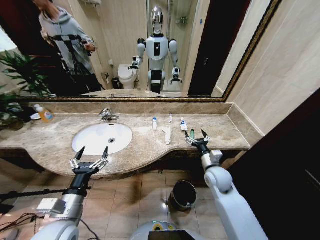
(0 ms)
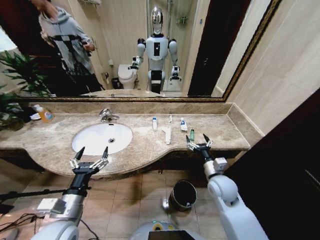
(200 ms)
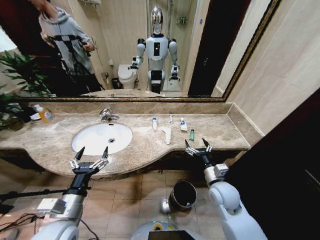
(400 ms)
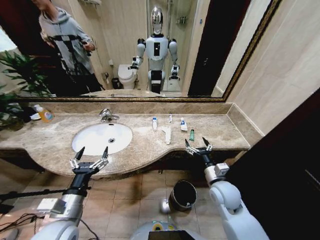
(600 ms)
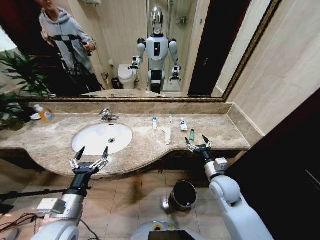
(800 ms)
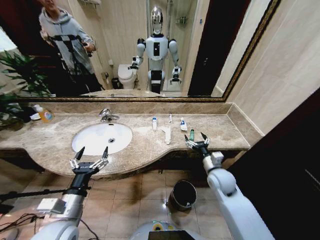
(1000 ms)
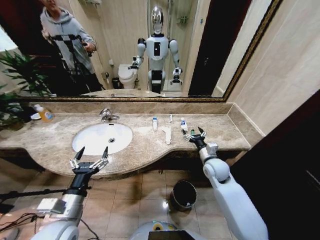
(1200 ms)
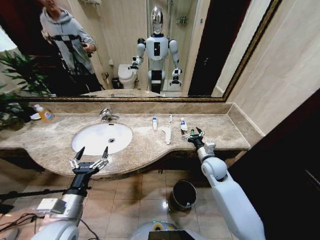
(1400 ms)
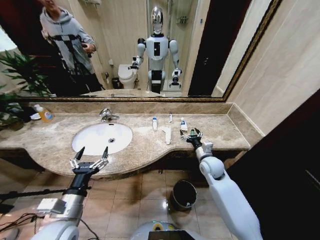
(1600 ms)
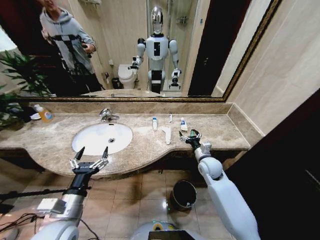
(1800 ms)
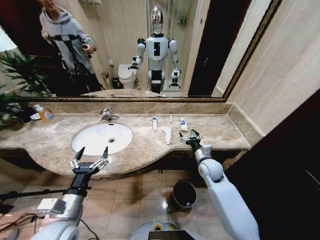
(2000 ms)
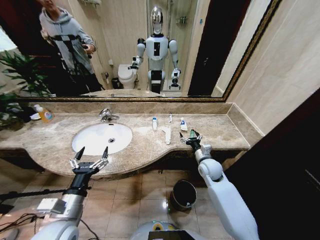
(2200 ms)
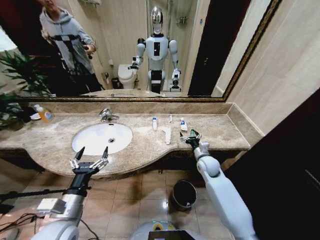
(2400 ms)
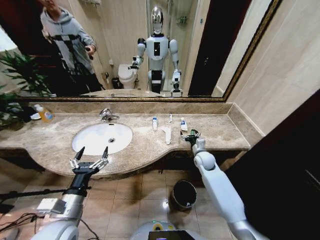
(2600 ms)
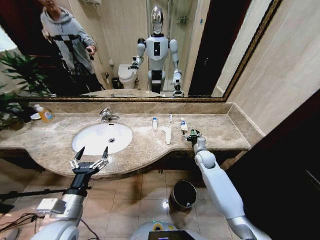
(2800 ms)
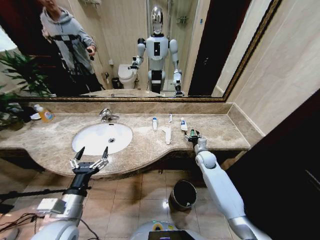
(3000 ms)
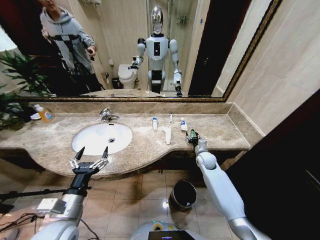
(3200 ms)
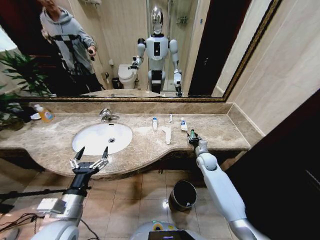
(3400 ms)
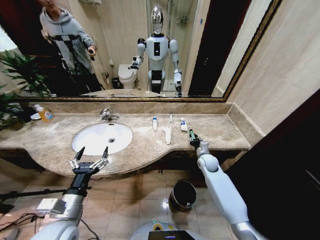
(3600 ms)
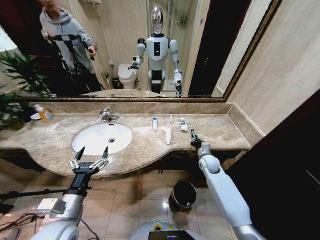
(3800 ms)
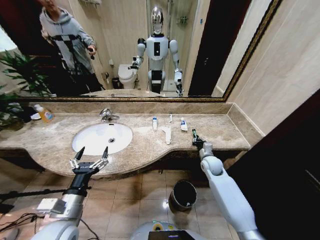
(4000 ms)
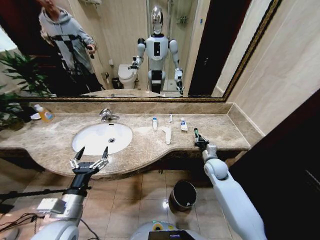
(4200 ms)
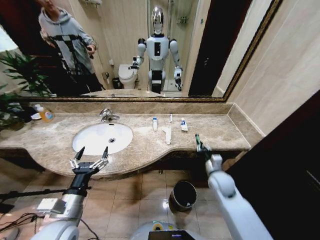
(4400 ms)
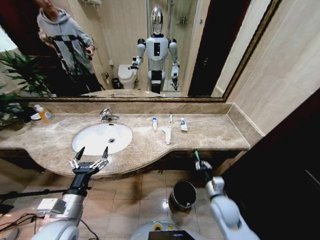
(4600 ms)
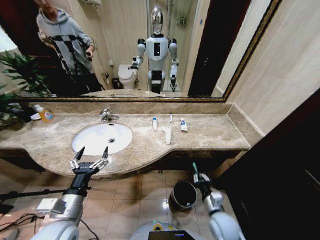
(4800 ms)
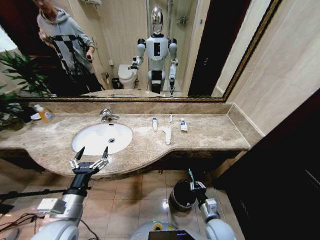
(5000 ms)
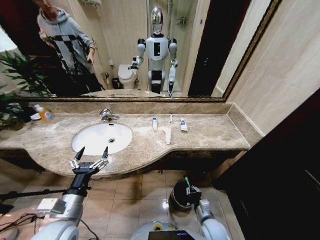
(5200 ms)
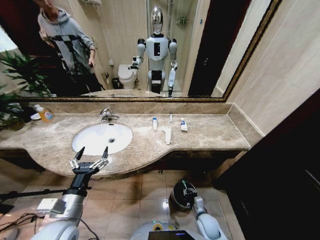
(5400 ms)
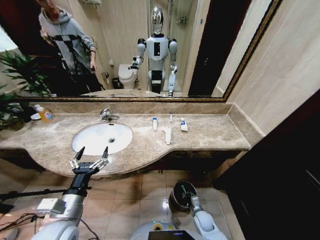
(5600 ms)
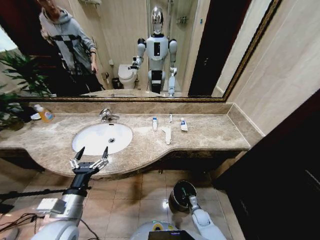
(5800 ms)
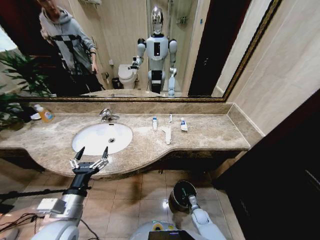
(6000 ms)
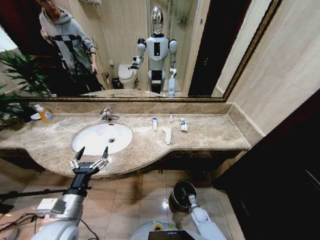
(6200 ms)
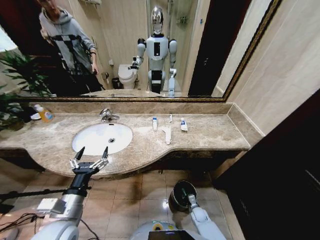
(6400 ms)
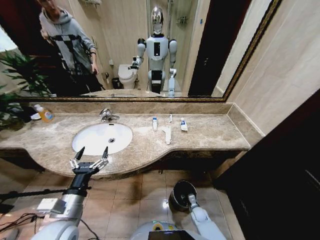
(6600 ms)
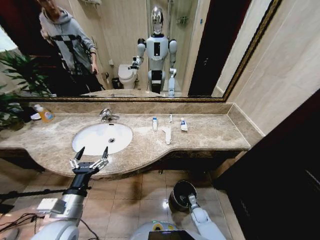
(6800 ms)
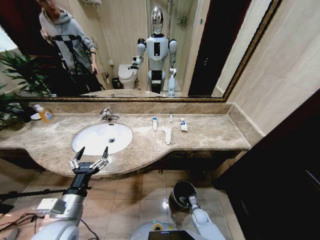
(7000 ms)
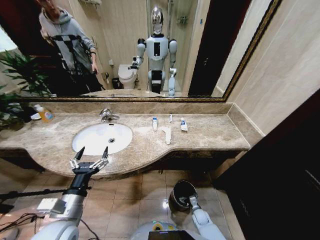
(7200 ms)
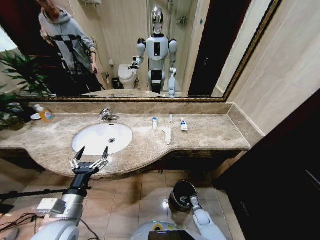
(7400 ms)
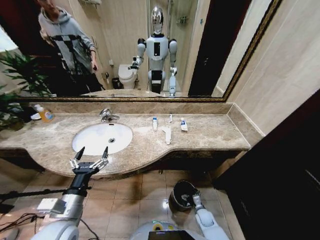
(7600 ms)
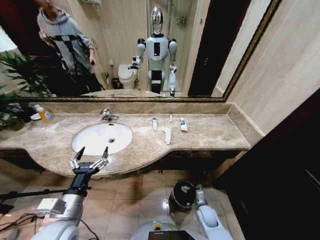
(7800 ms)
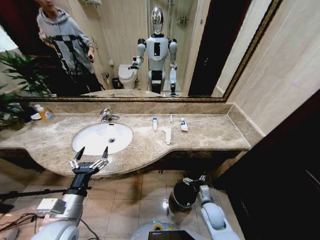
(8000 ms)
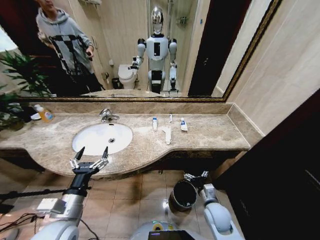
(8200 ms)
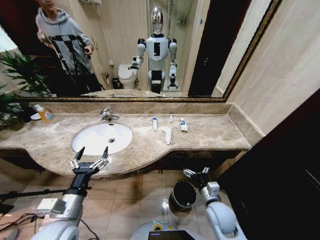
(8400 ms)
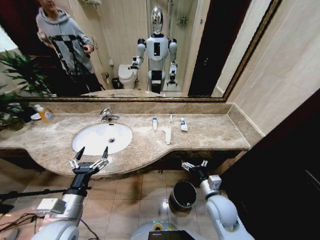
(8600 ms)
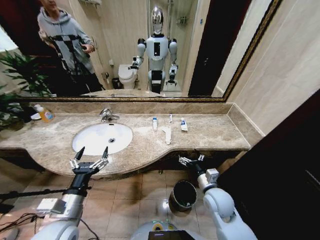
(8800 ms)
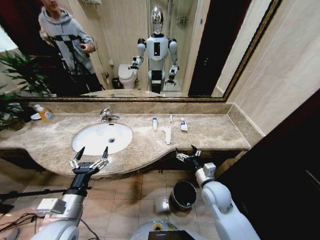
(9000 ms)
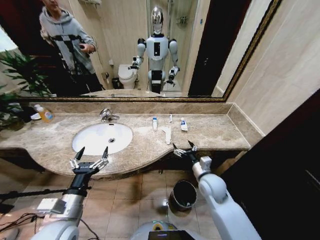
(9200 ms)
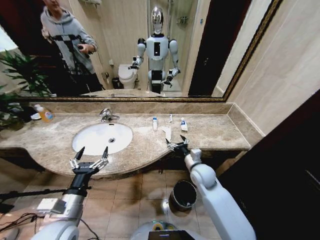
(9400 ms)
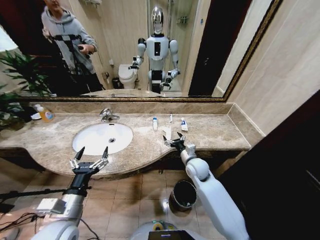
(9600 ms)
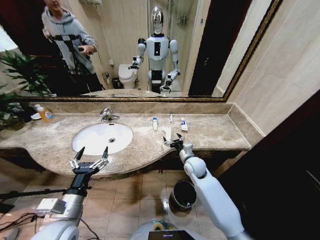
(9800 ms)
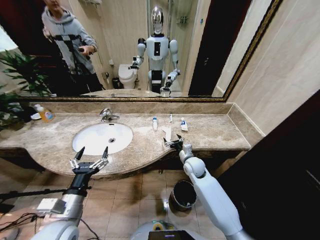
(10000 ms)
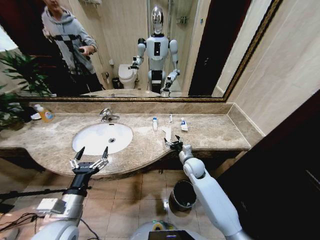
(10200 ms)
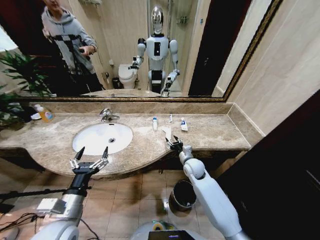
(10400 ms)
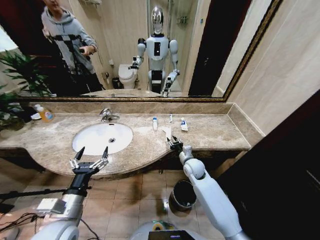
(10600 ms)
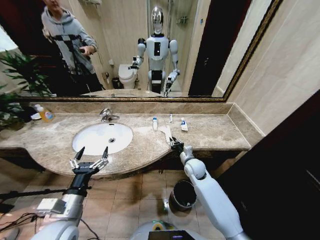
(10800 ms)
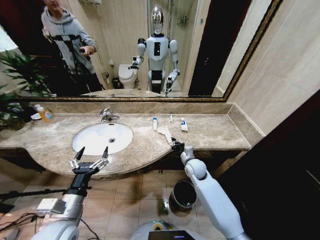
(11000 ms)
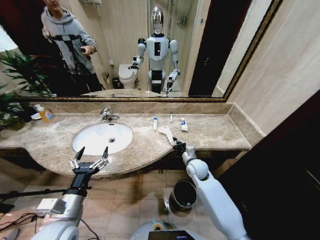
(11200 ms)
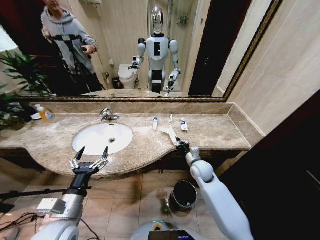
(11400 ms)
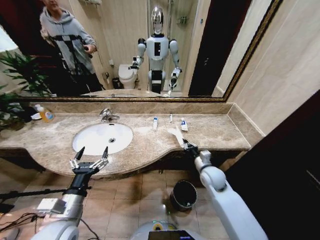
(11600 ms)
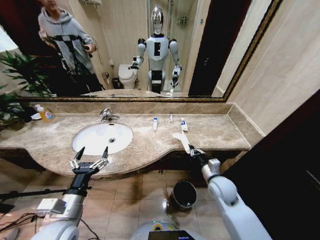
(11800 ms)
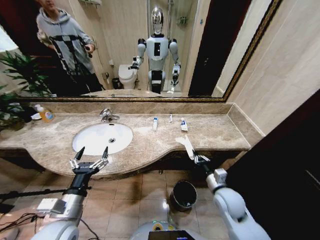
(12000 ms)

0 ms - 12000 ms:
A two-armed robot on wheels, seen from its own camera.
Task of the whole recording: Pick up the trash from the sink and place it in the trash bin.
0 ms - 1600 ms: The right gripper moves forward, some 5 cm.
1600 ms - 3000 ms: The right gripper heads forward and downward, covering about 10 cm.
3000 ms - 4400 ms: The right gripper travels backward by roughly 15 cm, and closes.
4400 ms - 6000 ms: The right gripper heads downward, covering roughly 30 cm.
6000 ms - 7600 ms: The right gripper opens.
7600 ms - 9000 ms: The right gripper travels upward by approximately 30 cm.
9000 ms - 10400 ms: The right gripper shifts some 15 cm forward.
10400 ms - 12000 ms: The right gripper heads backward and to the right, covering about 20 cm, and closes up.

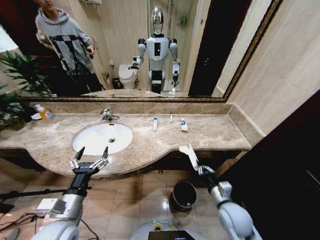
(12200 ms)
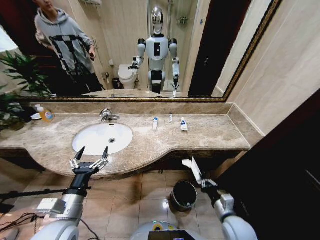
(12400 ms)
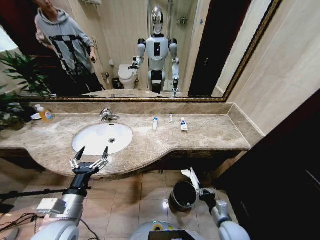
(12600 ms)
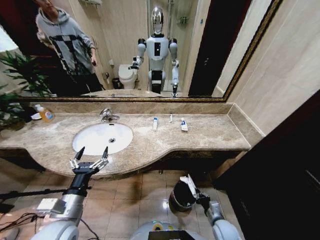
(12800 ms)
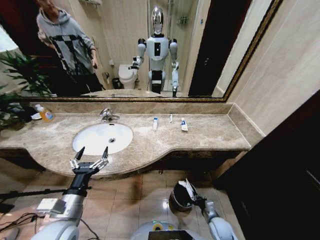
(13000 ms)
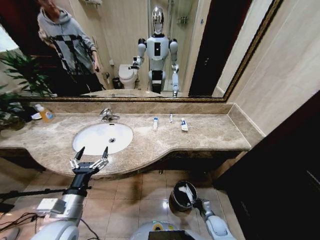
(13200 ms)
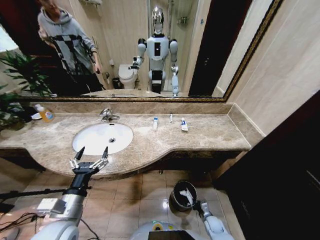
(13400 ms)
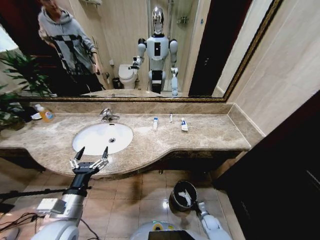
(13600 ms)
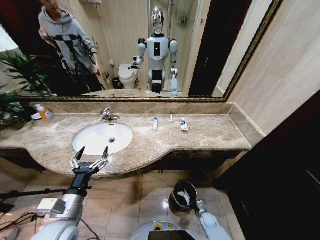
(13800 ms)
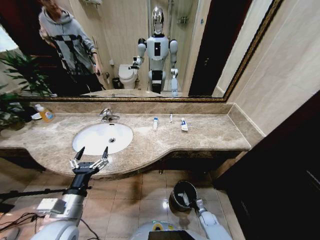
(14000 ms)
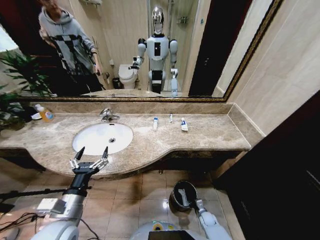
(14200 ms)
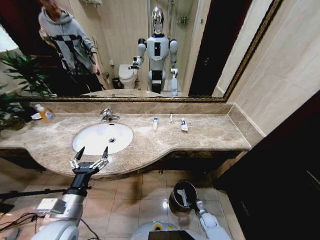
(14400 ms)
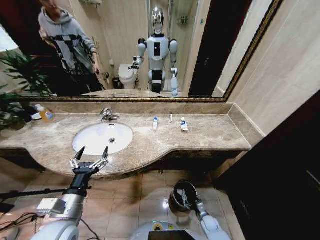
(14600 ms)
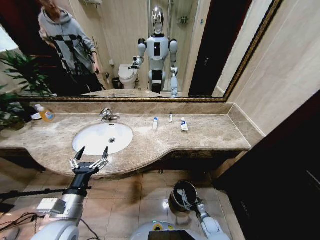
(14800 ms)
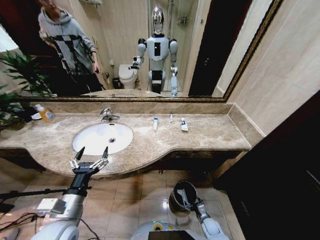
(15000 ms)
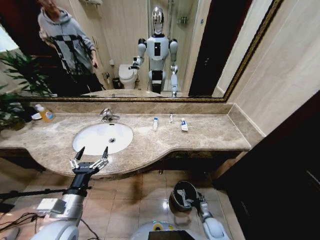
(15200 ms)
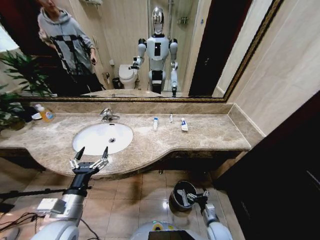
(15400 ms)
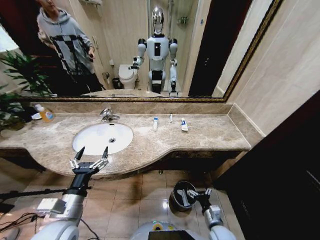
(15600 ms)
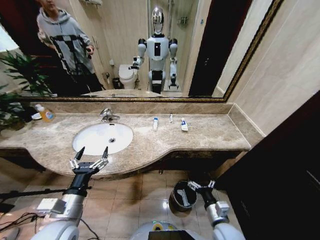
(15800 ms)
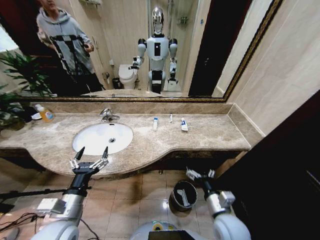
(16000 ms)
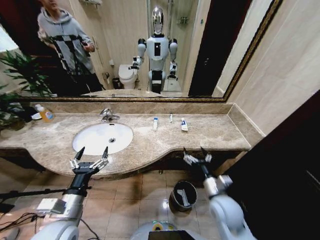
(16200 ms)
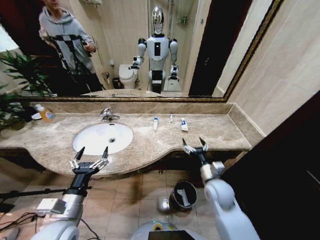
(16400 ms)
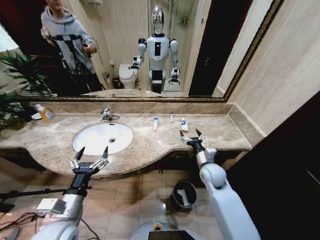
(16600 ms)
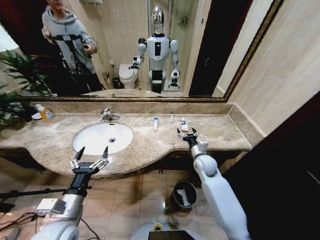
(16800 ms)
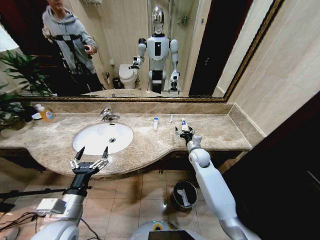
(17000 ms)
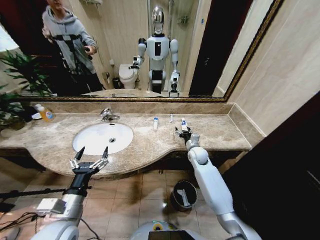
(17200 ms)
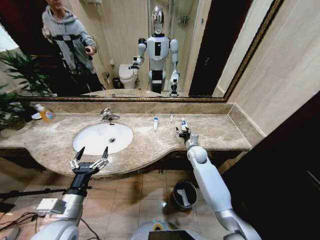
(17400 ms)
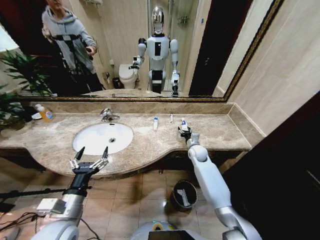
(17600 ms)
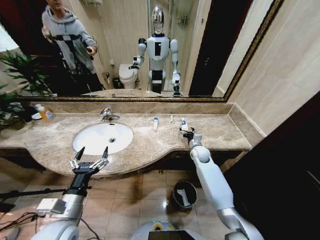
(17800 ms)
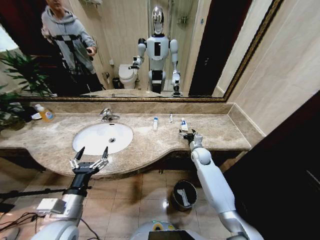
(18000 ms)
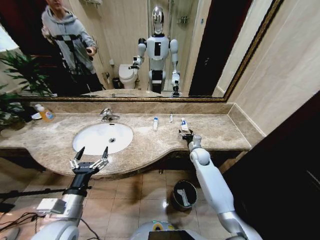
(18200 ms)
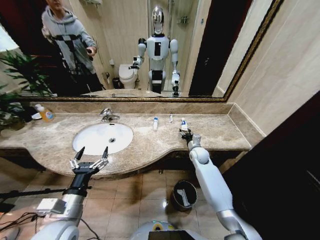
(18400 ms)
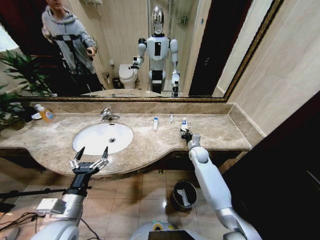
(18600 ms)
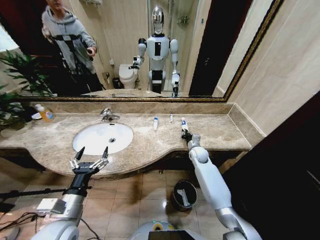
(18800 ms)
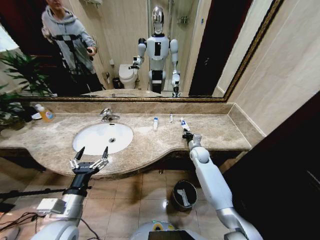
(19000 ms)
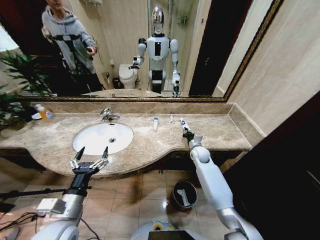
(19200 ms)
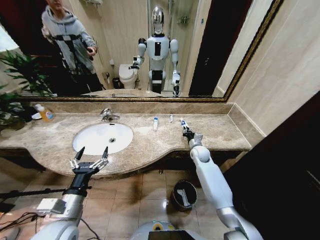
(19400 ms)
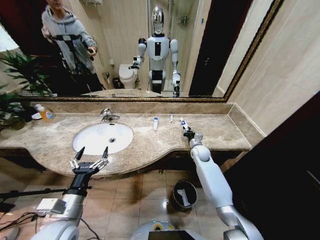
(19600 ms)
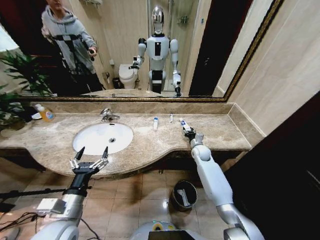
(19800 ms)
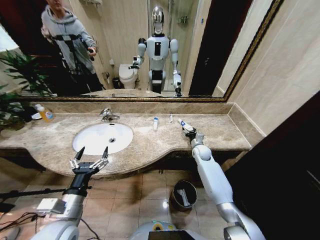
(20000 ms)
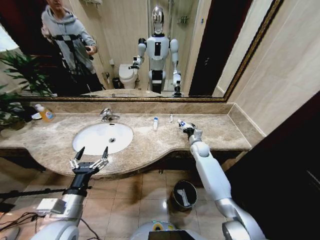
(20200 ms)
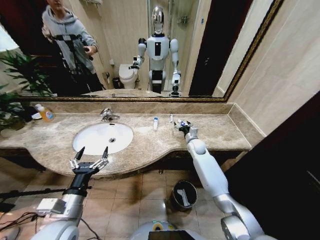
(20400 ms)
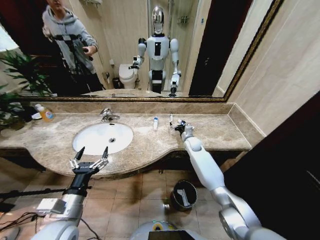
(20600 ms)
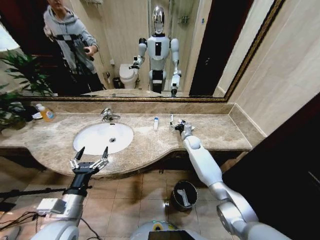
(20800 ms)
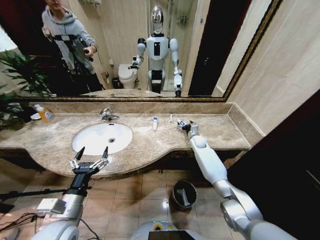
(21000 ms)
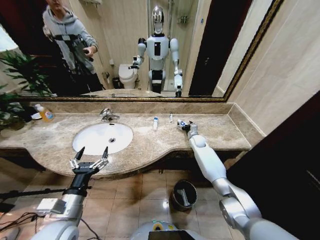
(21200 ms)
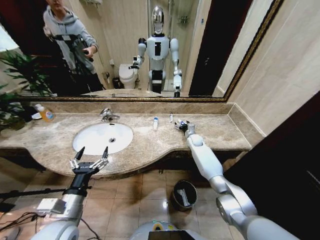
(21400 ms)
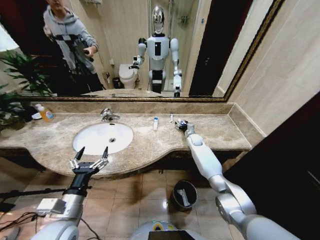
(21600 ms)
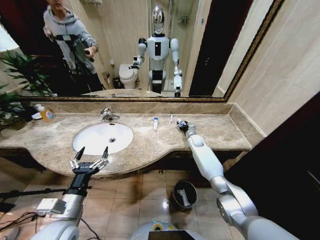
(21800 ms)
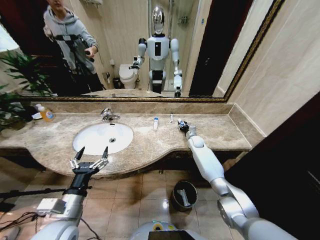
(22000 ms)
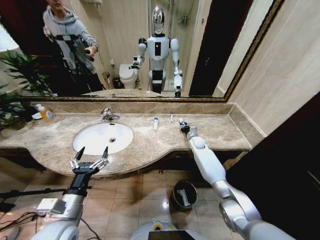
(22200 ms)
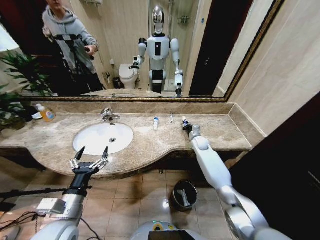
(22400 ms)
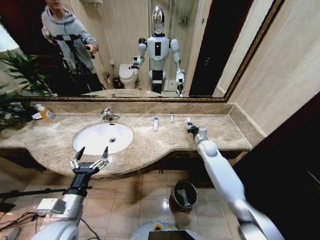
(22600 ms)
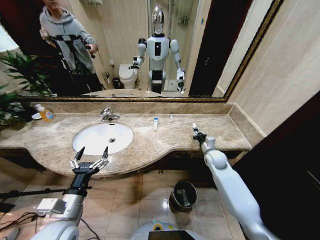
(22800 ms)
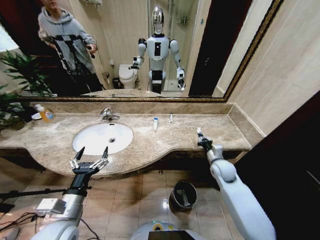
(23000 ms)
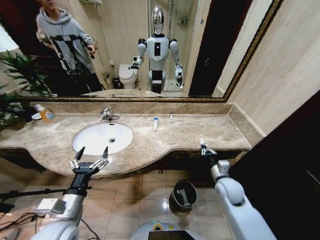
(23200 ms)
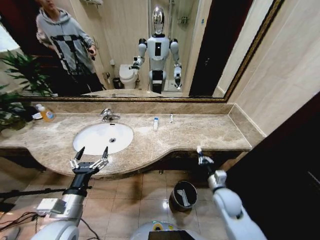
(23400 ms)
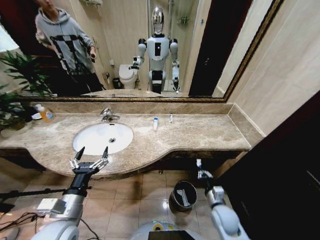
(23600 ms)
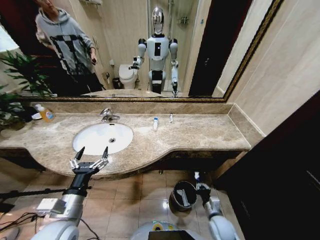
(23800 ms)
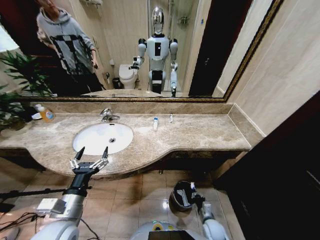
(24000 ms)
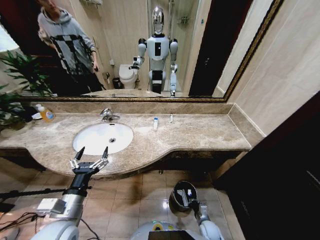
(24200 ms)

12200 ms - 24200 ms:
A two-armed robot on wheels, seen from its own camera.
Task of the whole recording: Pick up the trash from the sink and place it in the trash bin.
12200 ms - 13800 ms: The right gripper travels downward by approximately 30 cm.
13800 ms - 15200 ms: The right gripper moves roughly 5 cm, and opens its fingers.
15200 ms - 16600 ms: The right gripper heads upward and forward, covering some 35 cm.
16600 ms - 18200 ms: The right gripper heads forward, covering approximately 10 cm.
18200 ms - 19800 ms: The right gripper closes, then reopens.
19800 ms - 21200 ms: The right gripper is displaced forward by roughly 10 cm, and opens.
21200 ms - 22600 ms: The right gripper heads backward, covering about 10 cm, and closes.
22600 ms - 24200 ms: The right gripper travels backward and downward by some 40 cm.
